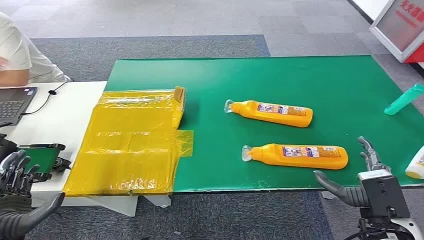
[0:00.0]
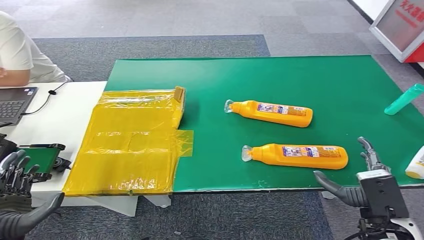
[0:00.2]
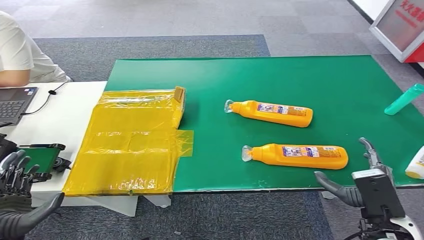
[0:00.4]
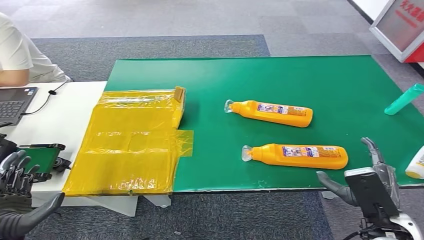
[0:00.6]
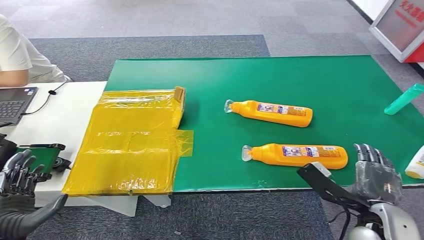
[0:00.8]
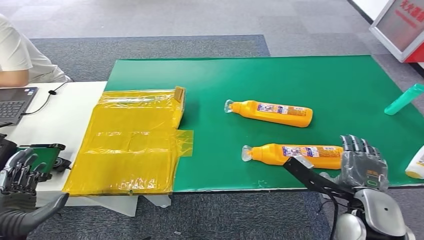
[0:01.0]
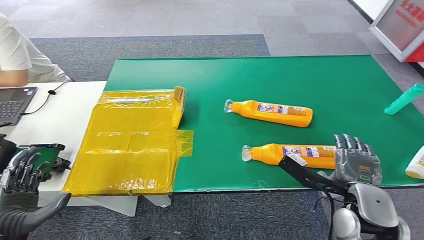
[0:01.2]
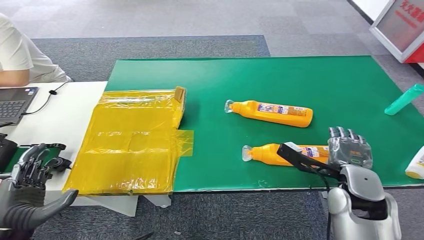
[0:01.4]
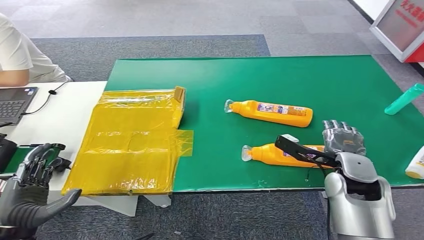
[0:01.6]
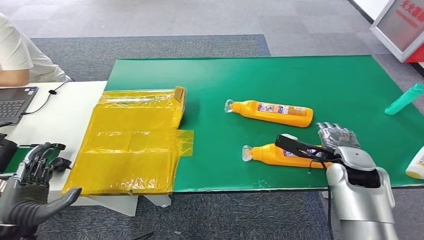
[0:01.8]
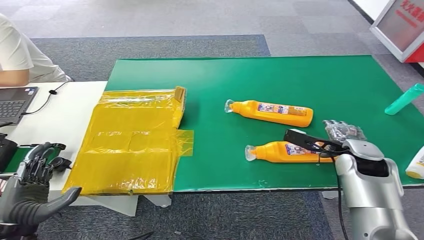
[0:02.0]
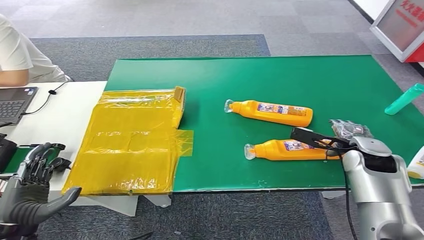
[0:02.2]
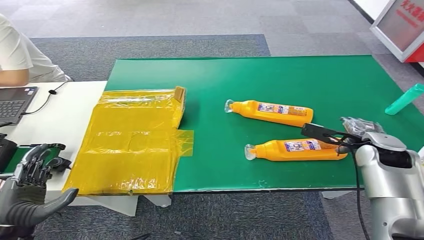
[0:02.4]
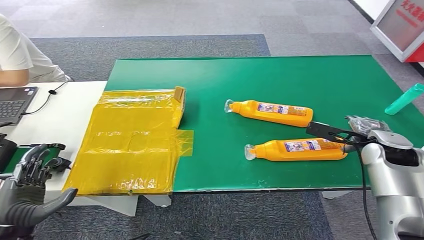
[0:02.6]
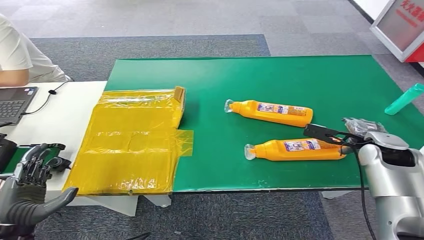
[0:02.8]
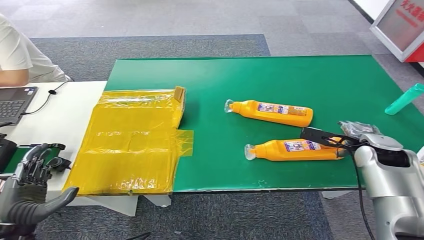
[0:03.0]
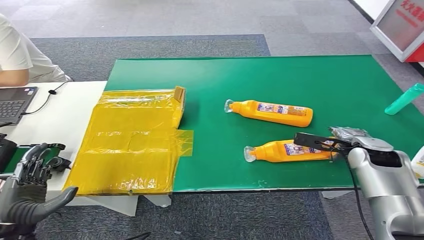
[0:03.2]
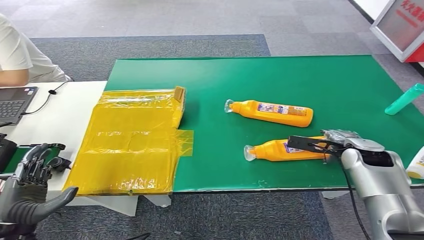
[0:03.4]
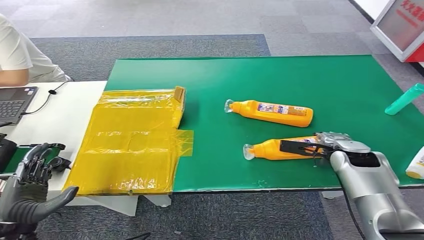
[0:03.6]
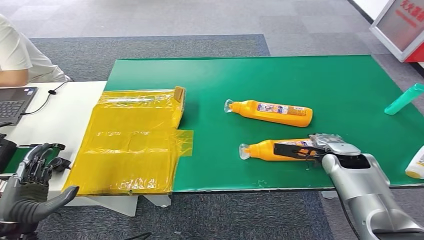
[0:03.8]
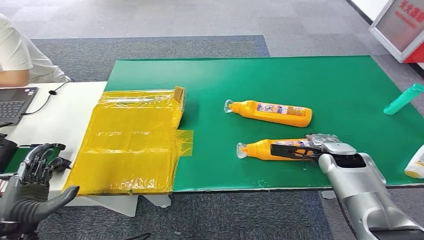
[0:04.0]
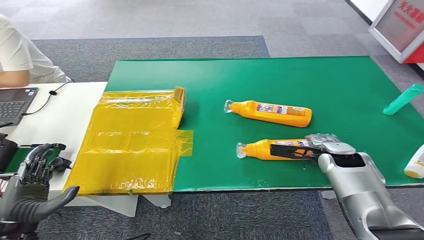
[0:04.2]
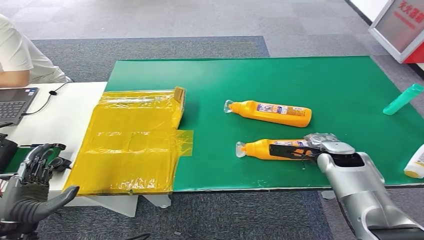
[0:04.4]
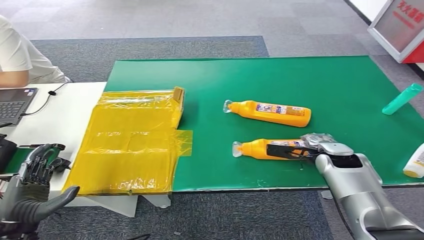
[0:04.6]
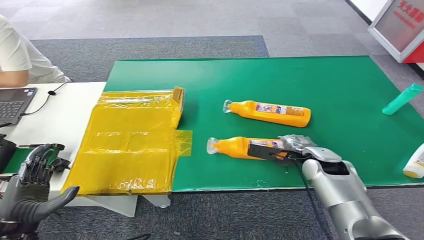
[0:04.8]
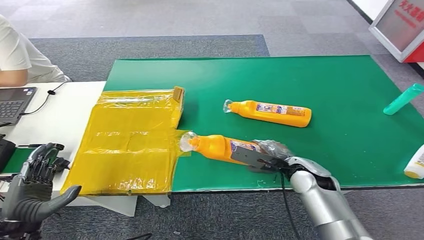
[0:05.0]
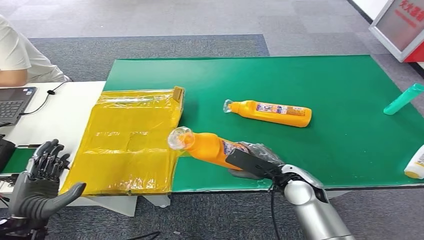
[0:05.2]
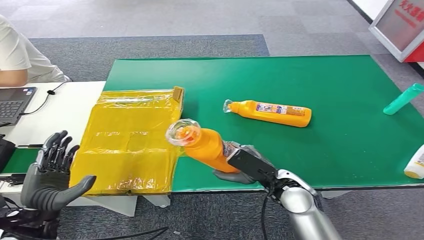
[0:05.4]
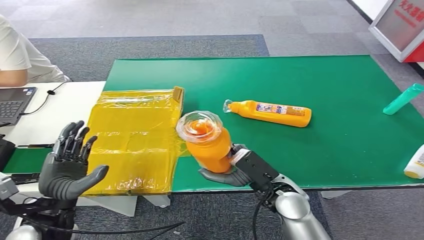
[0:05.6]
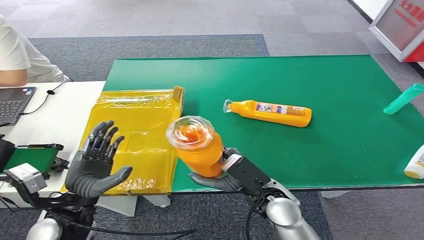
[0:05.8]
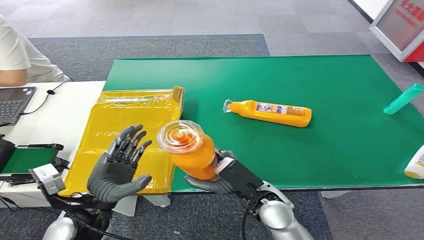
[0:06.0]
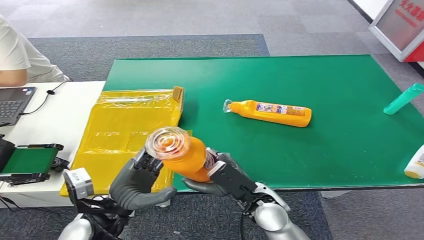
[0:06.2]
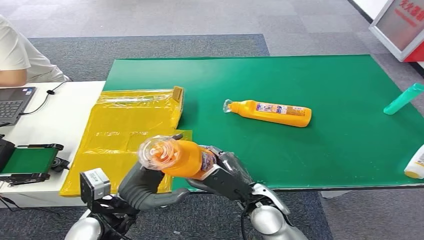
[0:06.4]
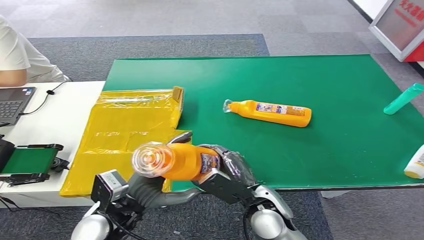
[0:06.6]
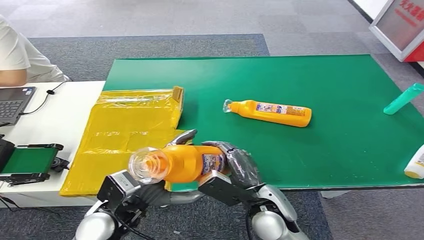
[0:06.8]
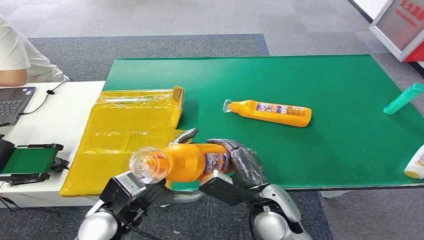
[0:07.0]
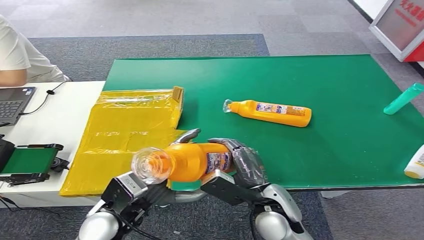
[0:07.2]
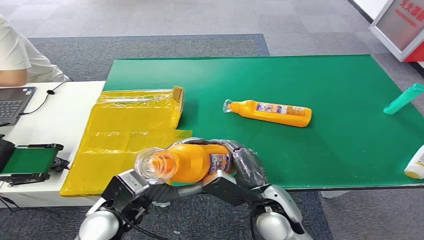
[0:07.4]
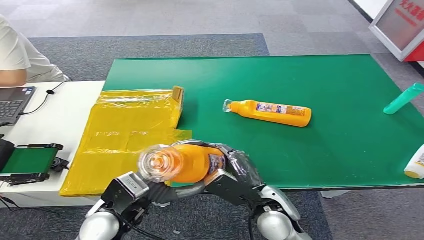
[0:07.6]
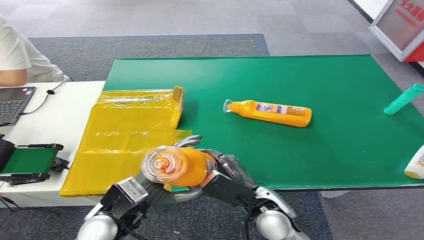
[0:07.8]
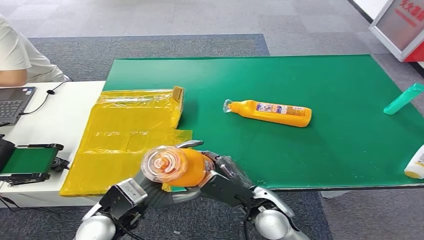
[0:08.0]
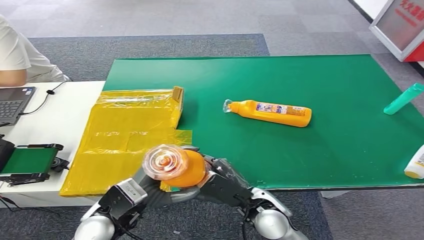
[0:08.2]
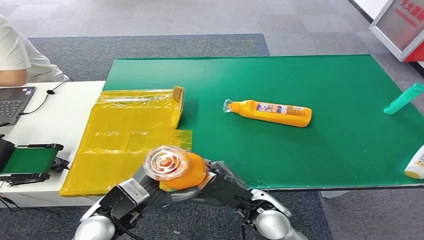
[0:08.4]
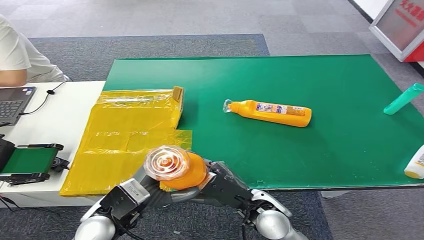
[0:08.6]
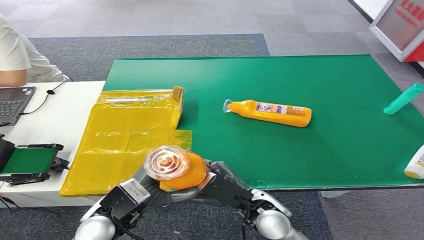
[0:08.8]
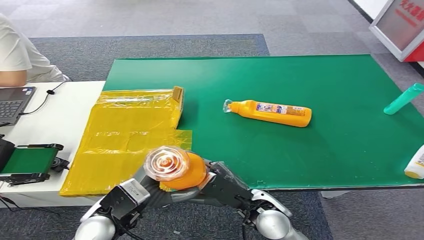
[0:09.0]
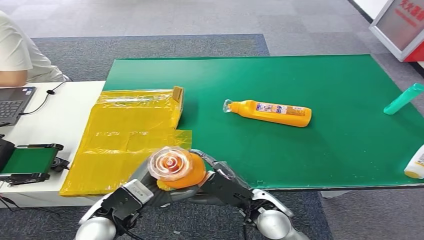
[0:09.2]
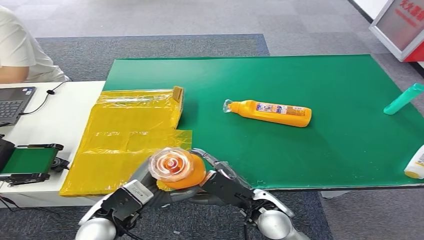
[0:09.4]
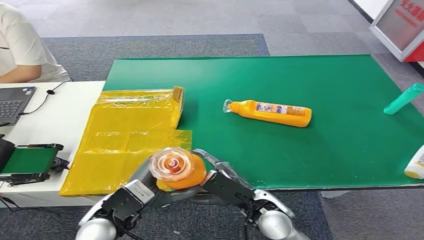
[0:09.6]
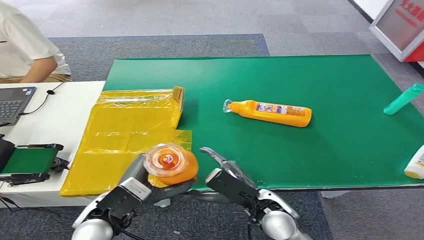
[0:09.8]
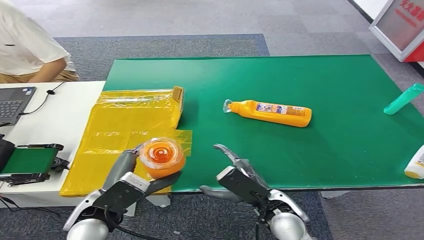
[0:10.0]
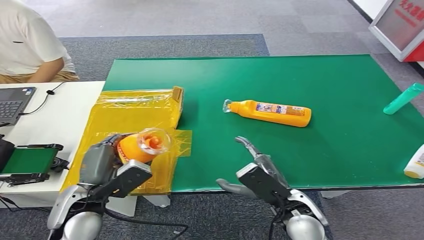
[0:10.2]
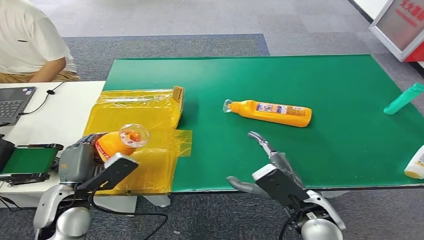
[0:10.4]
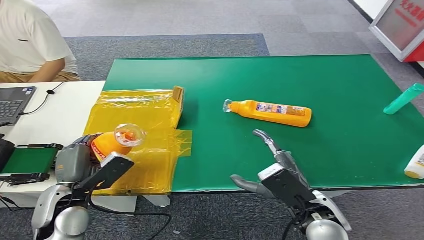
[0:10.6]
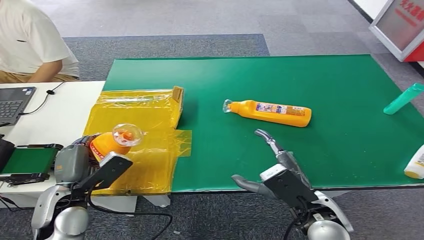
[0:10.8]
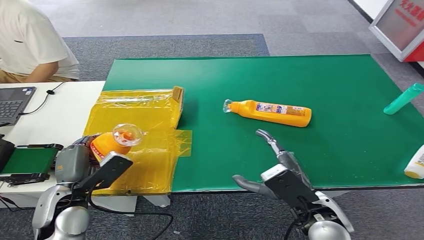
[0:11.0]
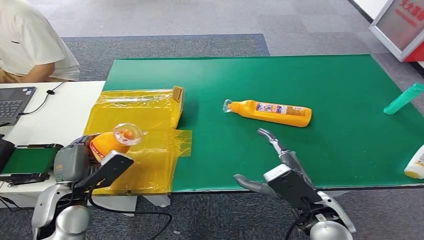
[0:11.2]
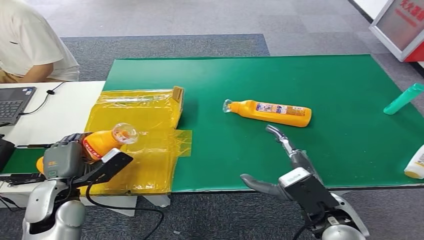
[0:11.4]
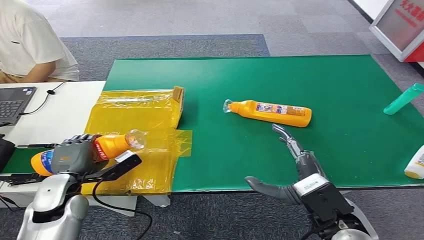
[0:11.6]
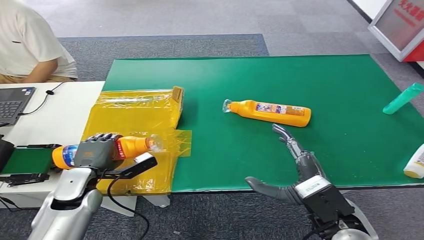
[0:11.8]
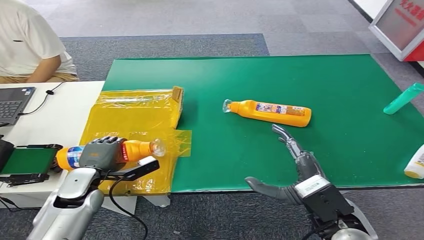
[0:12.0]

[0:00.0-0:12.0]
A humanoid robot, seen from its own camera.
Step, 0:00.0 to 0:05.4: Pick up the bottle from the table.
0:01.6 to 0:03.0: The right hand travels to the right and forward by approximately 10 cm.
0:03.0 to 0:04.4: The right hand shifts about 10 cm to the left and downward.
0:06.0 to 0:07.6: The left hand travels to the right by roughly 5 cm.
0:07.6 to 0:09.0: There are only small adjustments of the hands.
0:09.0 to 0:10.4: The left hand travels to the left by roughly 10 cm. The right hand shifts roughly 10 cm to the right.
0:10.4 to 0:12.0: The left hand moves downward and forward, roughly 10 cm.

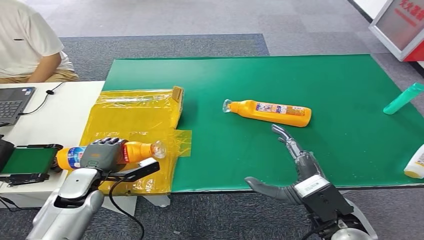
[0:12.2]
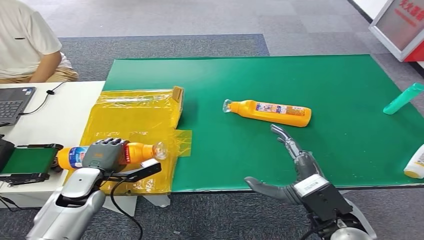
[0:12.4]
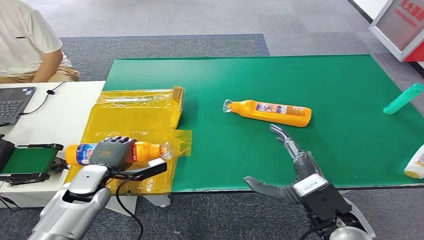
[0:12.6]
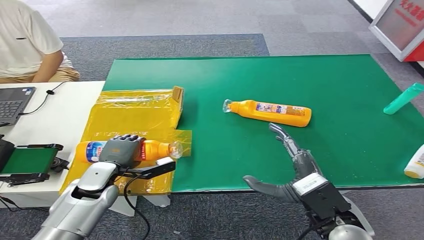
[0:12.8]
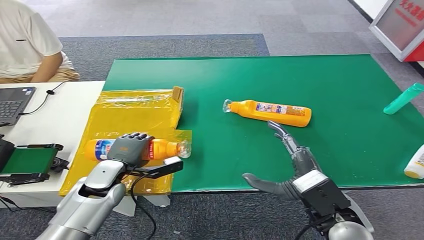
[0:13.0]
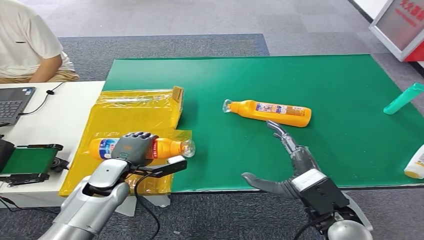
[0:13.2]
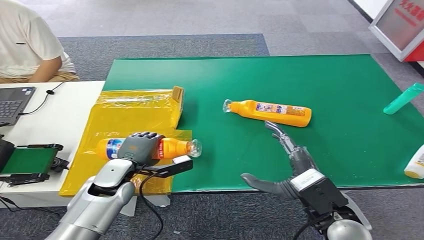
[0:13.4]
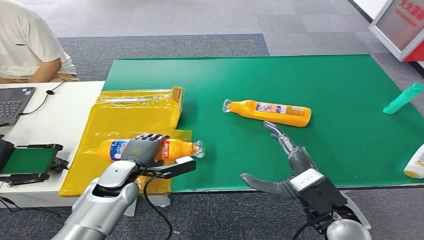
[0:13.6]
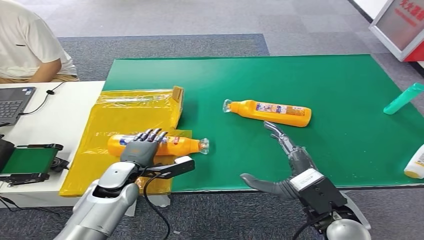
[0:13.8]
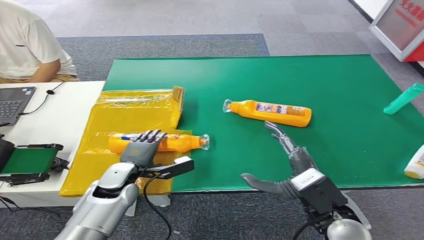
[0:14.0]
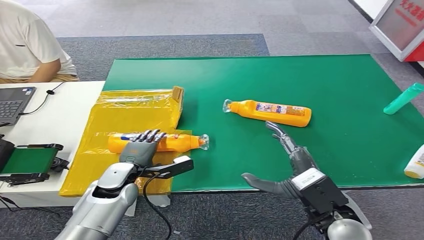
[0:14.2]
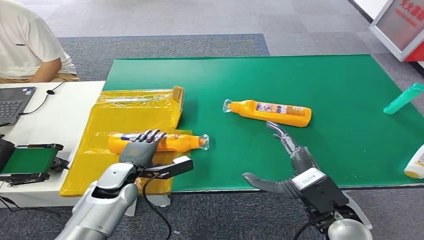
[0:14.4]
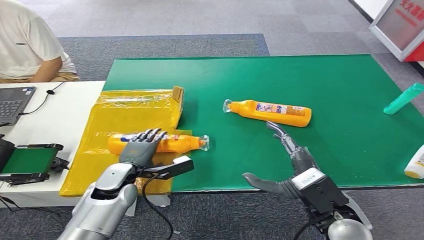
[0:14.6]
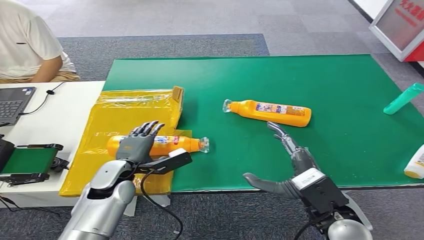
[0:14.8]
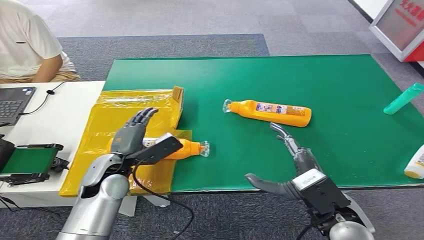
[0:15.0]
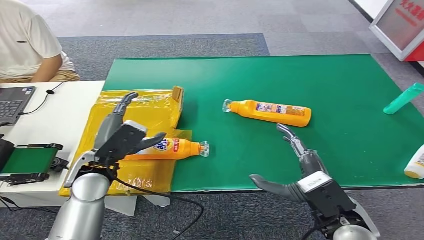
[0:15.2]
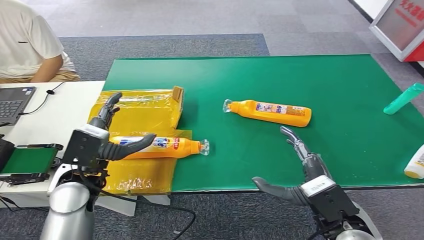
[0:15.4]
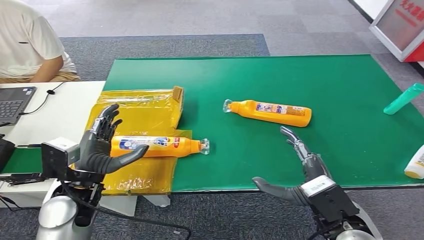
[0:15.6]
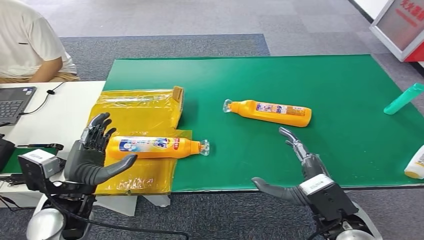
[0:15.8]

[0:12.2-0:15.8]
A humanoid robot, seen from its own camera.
Step, 0:12.2 to 0:15.8: Turn the bottle to the front side.
0:12.2 to 0:14.0: The left hand goes some 10 cm to the right.
0:14.0 to 0:15.8: The left hand goes approximately 15 cm upward and backward.
